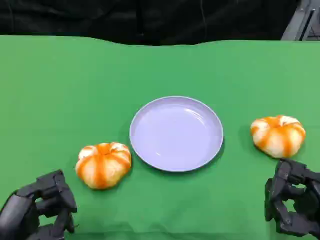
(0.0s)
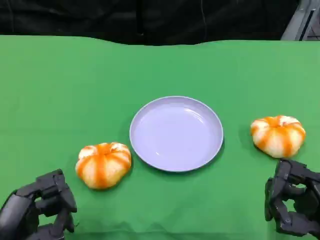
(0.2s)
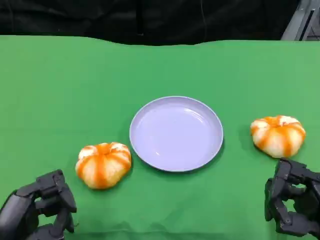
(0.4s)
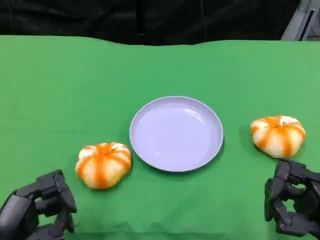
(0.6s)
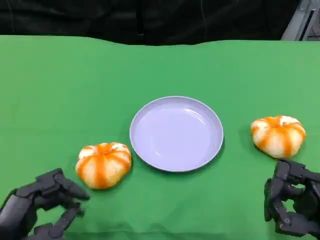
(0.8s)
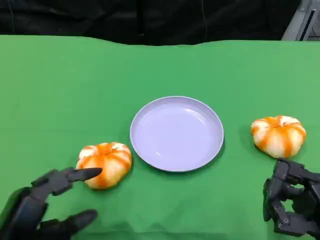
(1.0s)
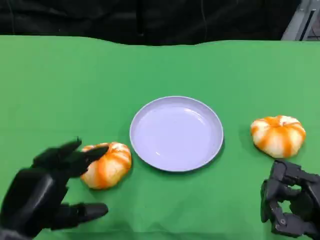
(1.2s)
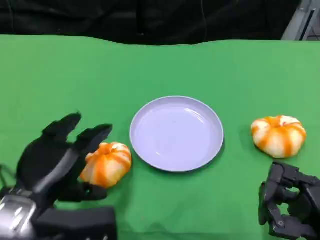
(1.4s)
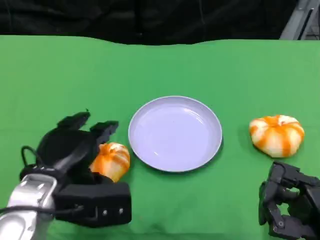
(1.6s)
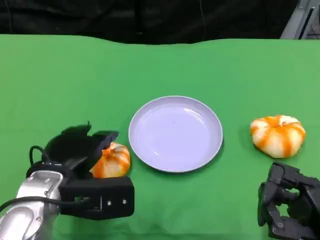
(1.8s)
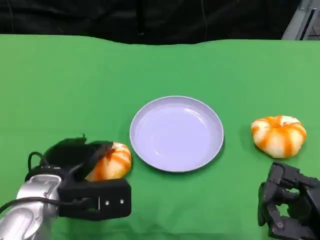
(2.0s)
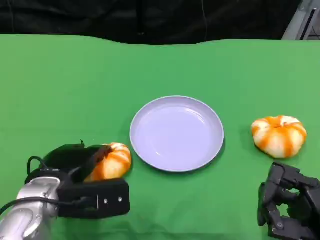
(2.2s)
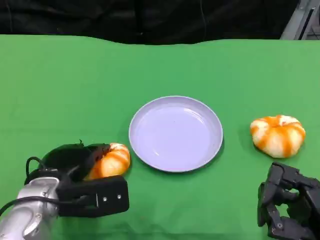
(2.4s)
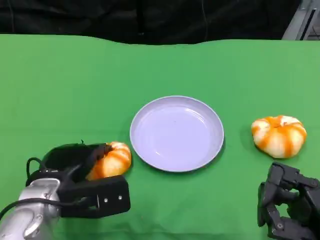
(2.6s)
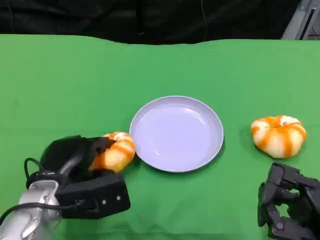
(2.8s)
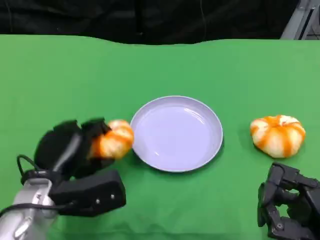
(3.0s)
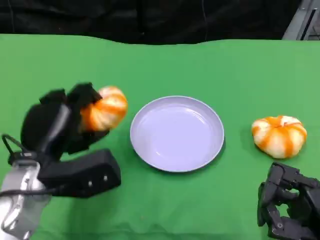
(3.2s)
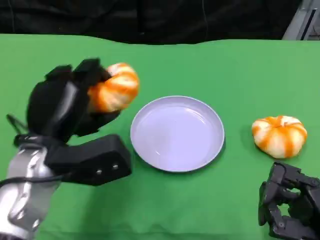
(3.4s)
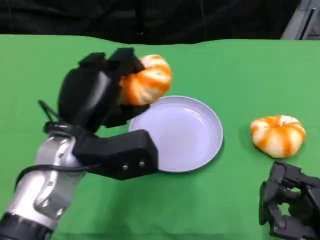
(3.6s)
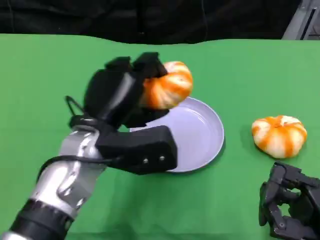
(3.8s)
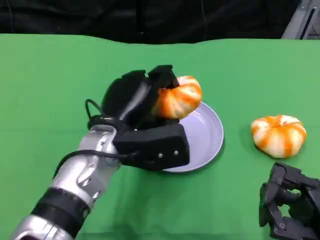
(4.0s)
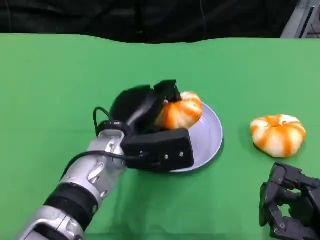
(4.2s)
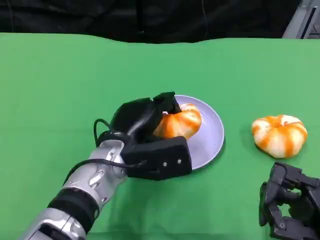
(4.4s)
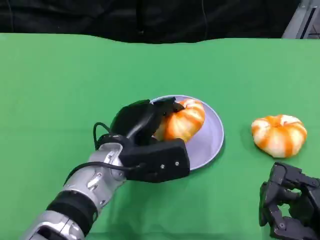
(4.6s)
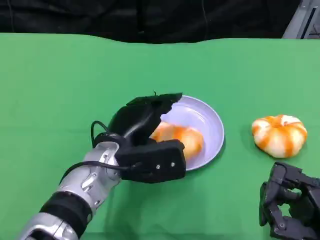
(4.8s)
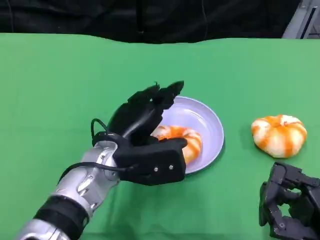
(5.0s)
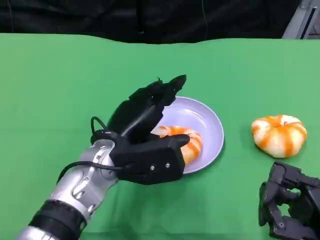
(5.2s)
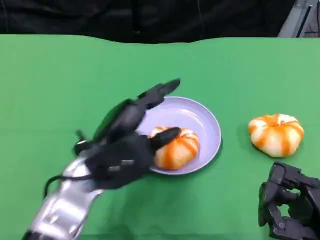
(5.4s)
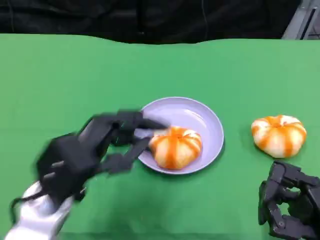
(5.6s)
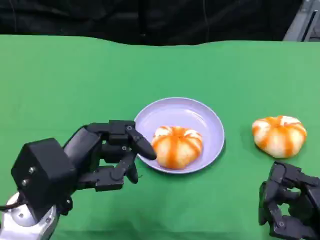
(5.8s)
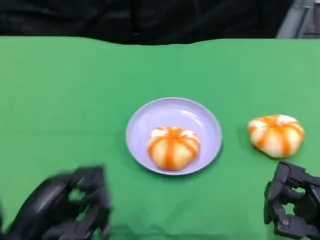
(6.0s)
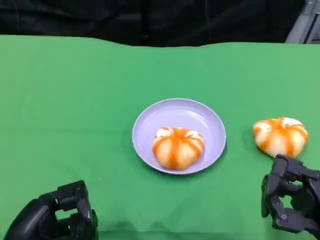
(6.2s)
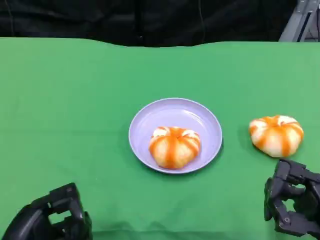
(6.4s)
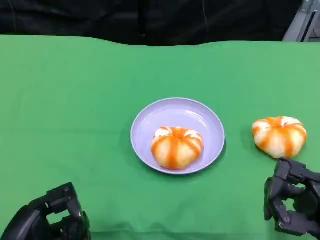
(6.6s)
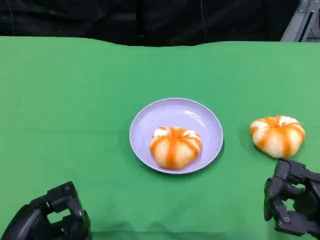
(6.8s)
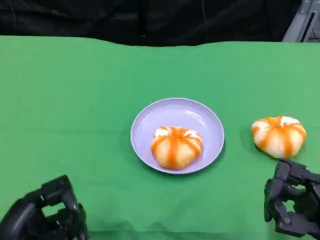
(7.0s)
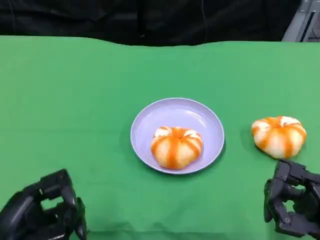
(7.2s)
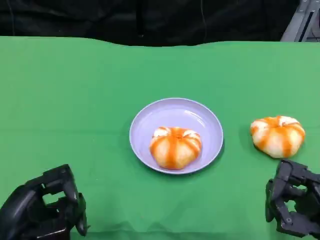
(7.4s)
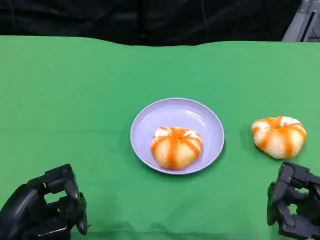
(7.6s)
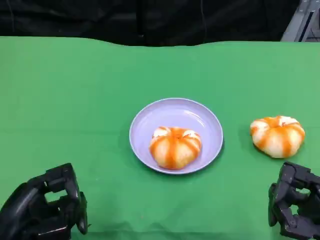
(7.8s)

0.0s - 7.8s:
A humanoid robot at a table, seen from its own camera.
Task of the whole recording: Grasp the bread from the table and place it into the plate.
0.0s - 1.6s: The left hand shifts about 10 cm forward and to the right.
3.2s - 4.6s: The left hand heads to the right, covering about 10 cm.
4.6s - 6.2s: The left hand heads backward and to the left, covering roughly 20 cm.
6.2s - 7.8s: The hands move only a little.

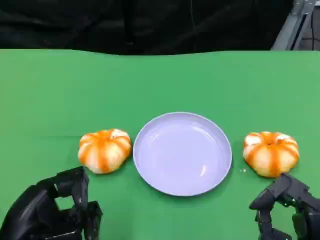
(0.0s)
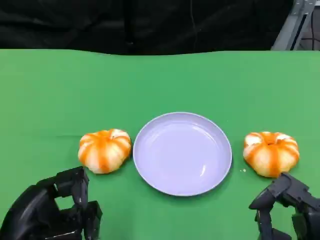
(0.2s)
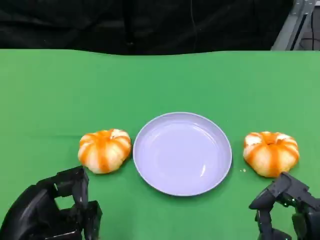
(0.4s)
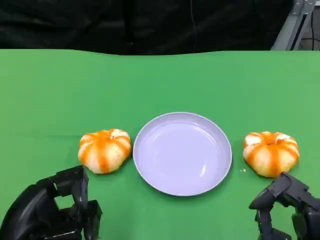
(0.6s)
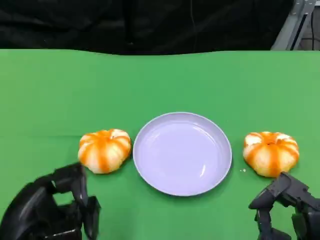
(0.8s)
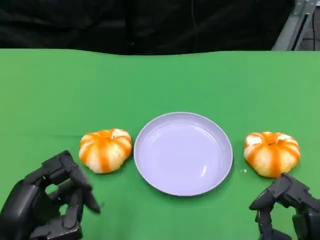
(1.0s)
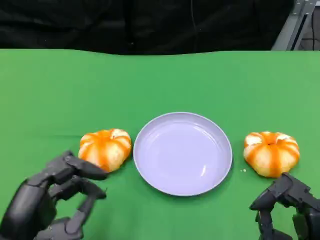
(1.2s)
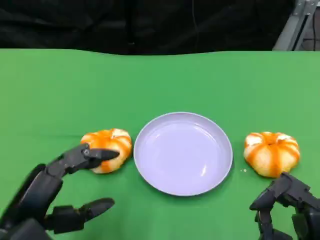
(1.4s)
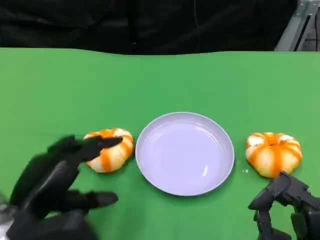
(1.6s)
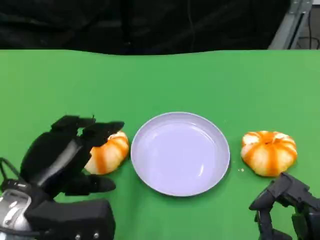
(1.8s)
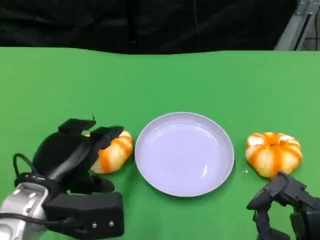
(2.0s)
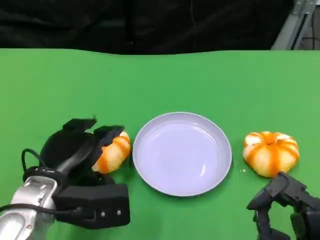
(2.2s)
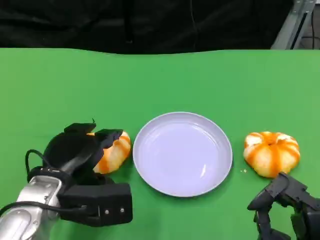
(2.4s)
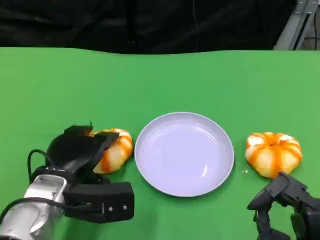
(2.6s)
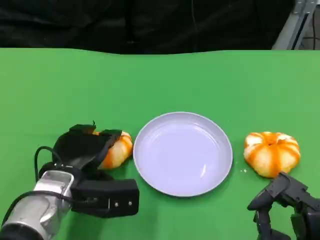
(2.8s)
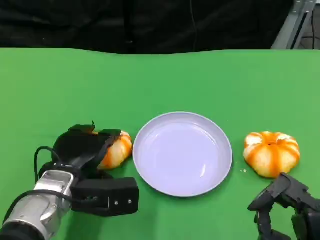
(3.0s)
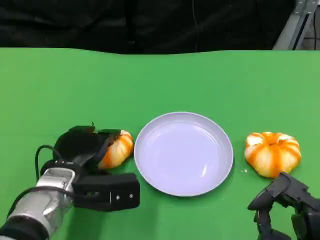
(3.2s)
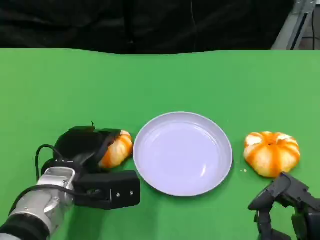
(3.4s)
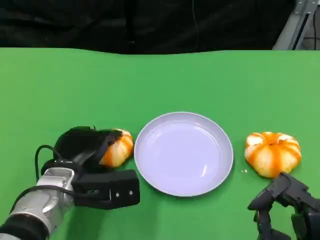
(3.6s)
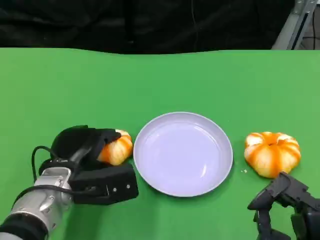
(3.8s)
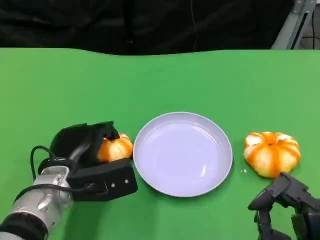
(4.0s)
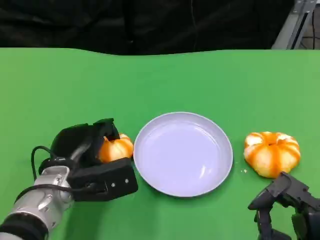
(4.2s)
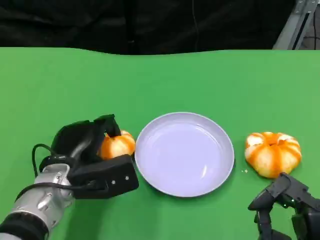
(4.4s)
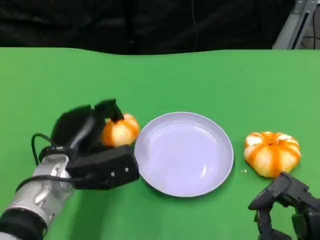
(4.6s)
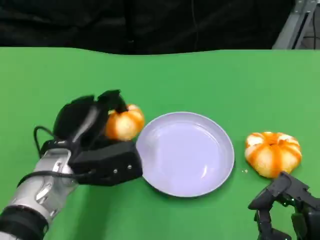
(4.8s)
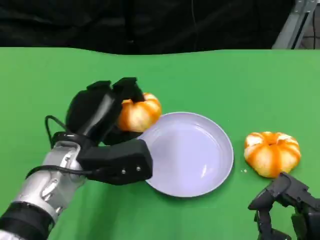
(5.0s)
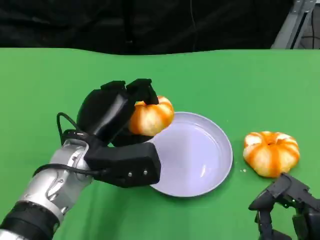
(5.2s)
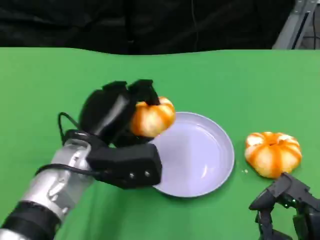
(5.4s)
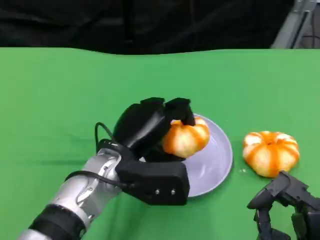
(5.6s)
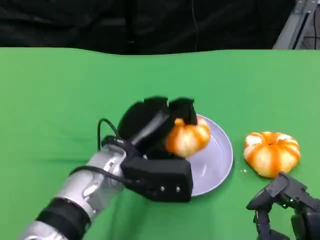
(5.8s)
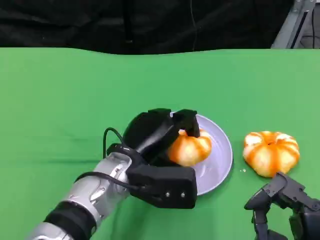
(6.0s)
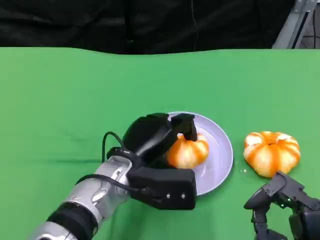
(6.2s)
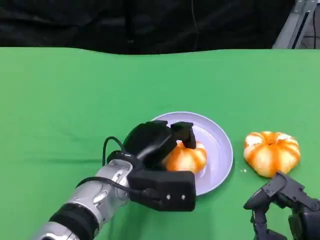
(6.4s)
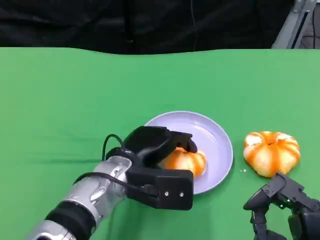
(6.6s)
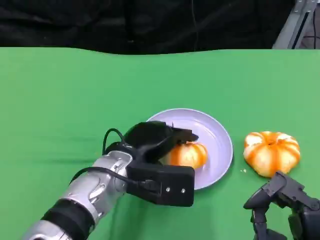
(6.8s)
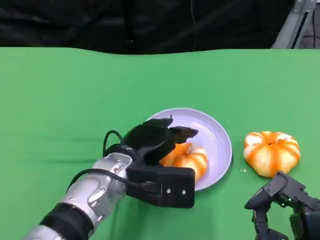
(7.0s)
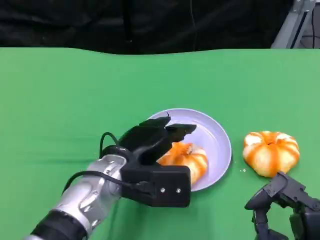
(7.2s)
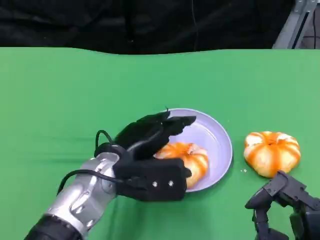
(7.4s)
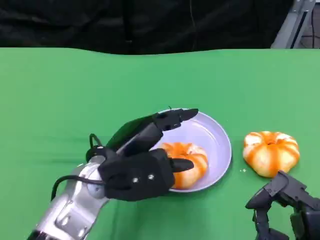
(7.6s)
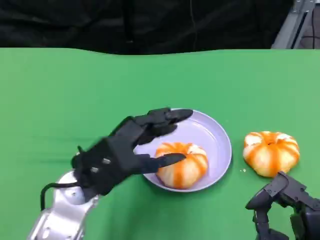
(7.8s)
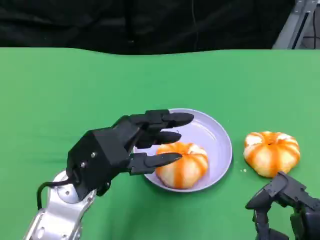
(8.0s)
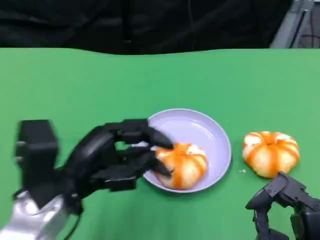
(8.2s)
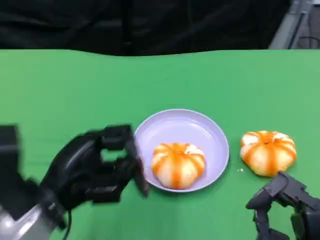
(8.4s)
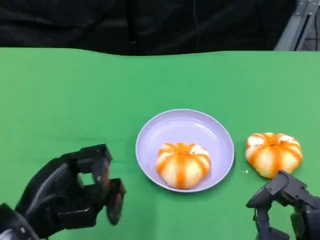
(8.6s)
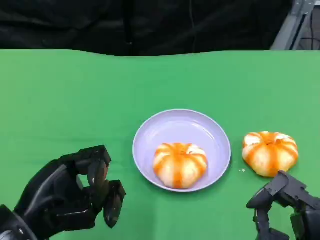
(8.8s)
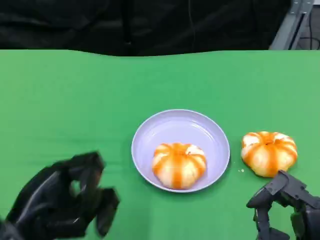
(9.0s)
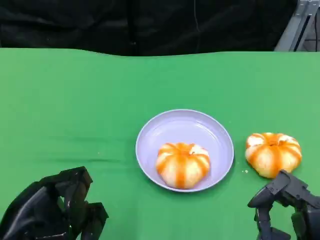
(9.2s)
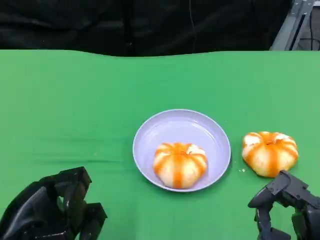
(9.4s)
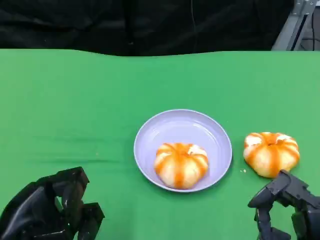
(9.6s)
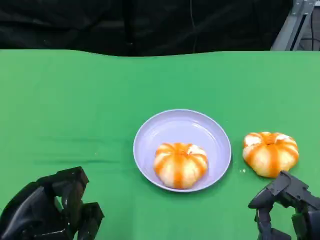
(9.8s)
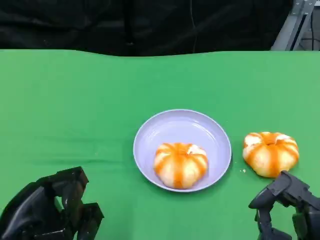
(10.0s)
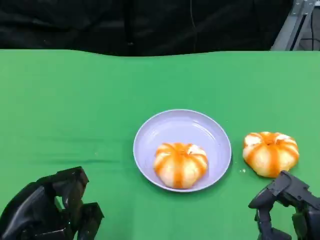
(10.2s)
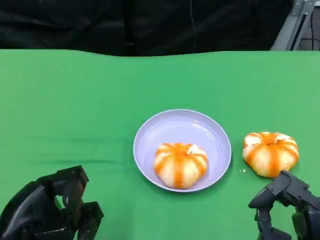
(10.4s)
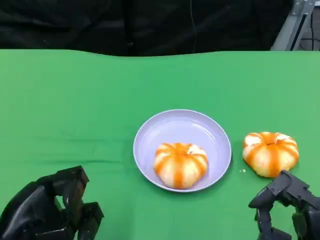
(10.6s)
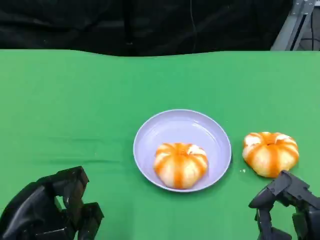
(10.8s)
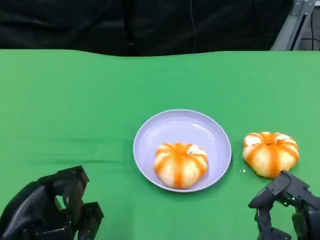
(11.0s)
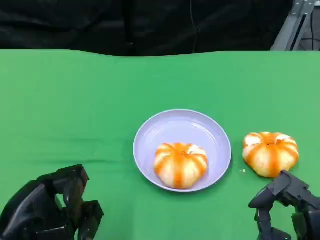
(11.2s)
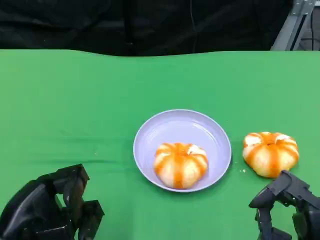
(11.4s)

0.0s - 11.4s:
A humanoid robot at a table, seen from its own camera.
Task of the whole recording: Grasp the bread from the table and place it into the plate.
1.4s - 2.8s: The left hand moves forward, downward and to the right, some 15 cm.
2.8s - 4.2s: The hands make only small movements.
4.2s - 5.6s: The left hand shifts approximately 10 cm to the right and upward.
7.2s - 8.6s: The left hand is displaced to the left and backward by some 15 cm.
8.6s - 10.0s: The hands stay close to where they were, moving slightly.
10.0s - 11.4s: Neither hand changes place.

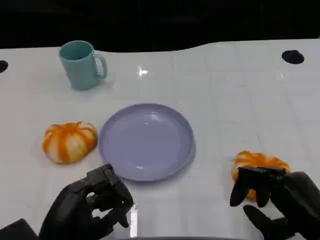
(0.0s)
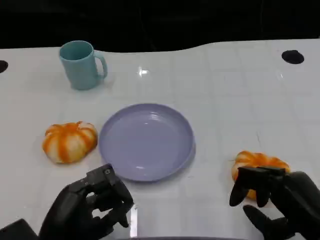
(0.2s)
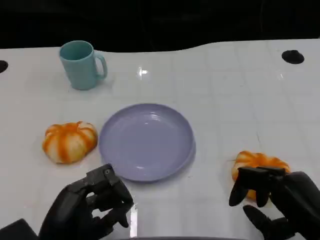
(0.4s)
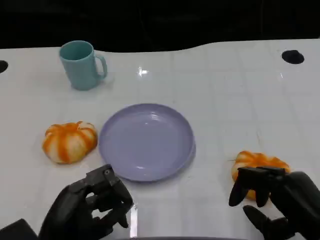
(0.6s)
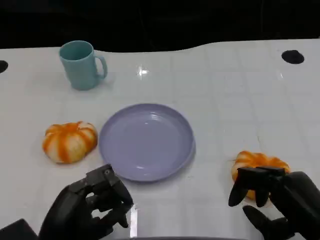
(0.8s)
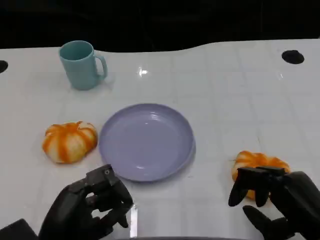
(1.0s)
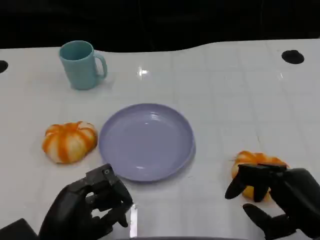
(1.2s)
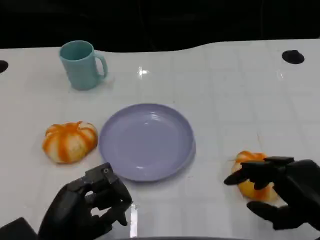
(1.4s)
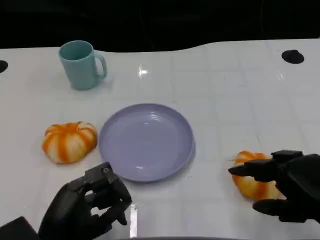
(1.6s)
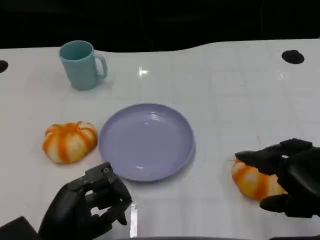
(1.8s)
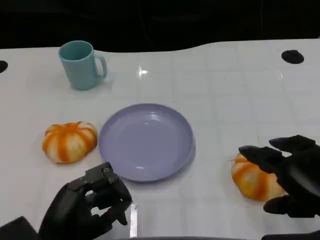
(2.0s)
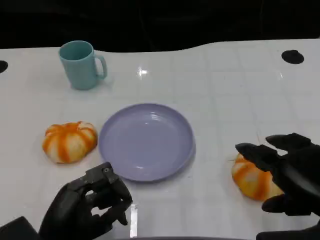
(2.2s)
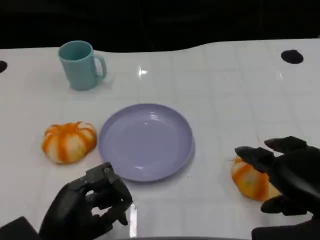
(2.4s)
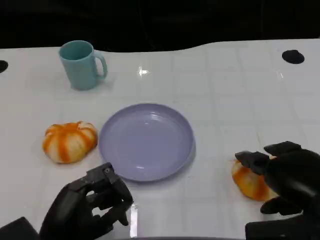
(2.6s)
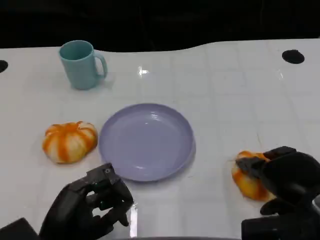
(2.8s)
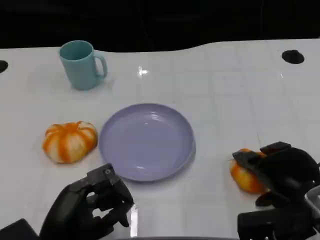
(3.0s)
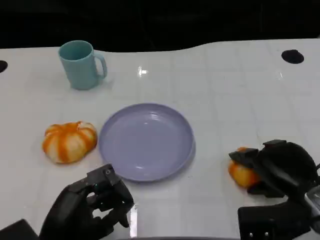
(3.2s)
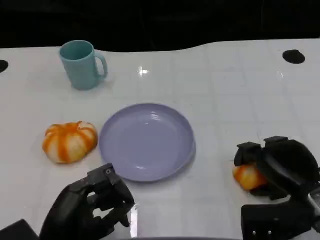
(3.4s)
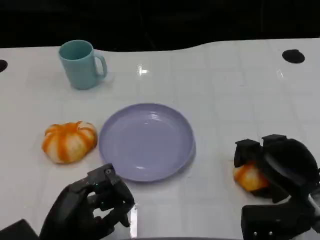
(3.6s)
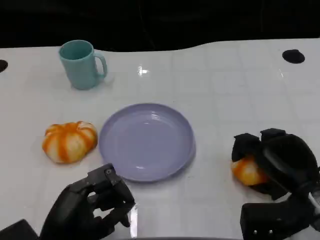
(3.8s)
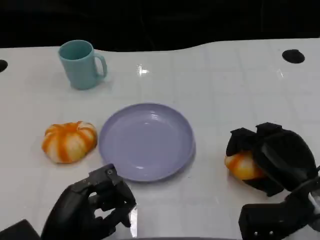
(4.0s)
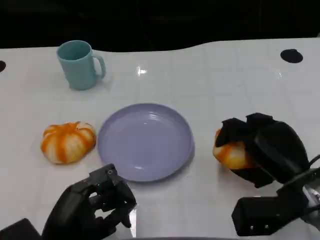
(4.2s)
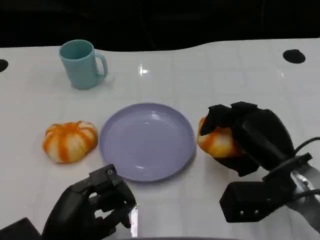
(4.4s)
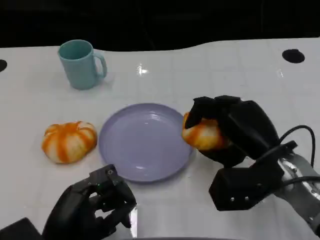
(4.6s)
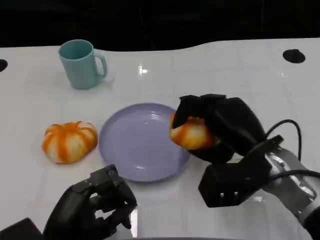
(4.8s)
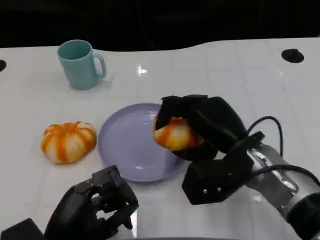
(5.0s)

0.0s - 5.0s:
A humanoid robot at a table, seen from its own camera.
Task of the whole recording: Grasp the bread from the table and place it into the plate.
0.0s - 1.6s: The right hand shifts some 5 cm upward.
1.6s - 3.4s: The right hand heads forward and downward, covering roughly 10 cm.
3.4s - 5.0s: The right hand shifts approximately 10 cm to the left and upward.
